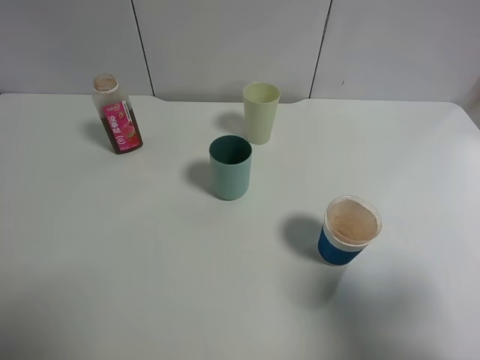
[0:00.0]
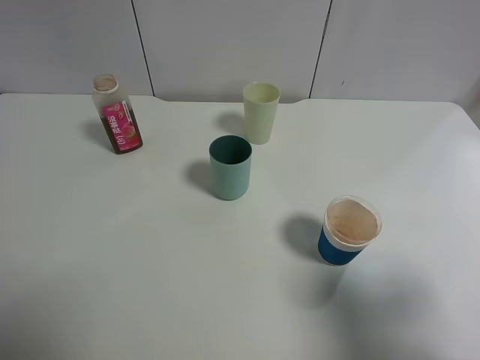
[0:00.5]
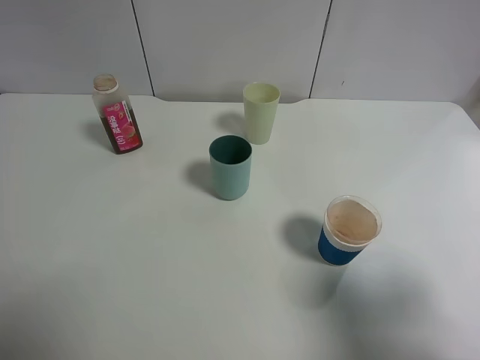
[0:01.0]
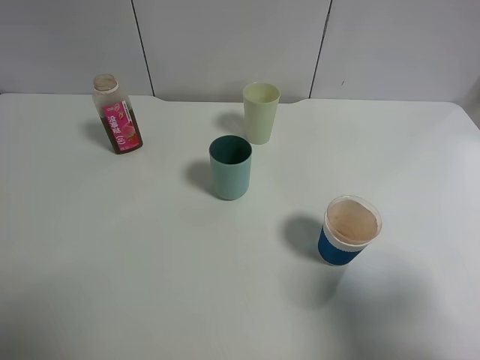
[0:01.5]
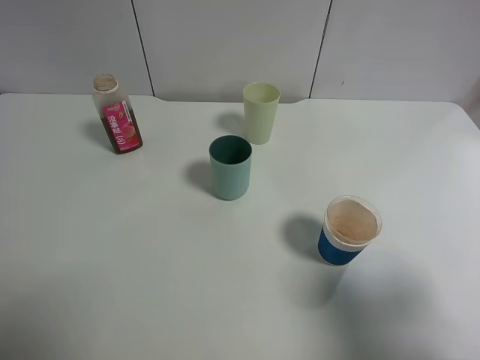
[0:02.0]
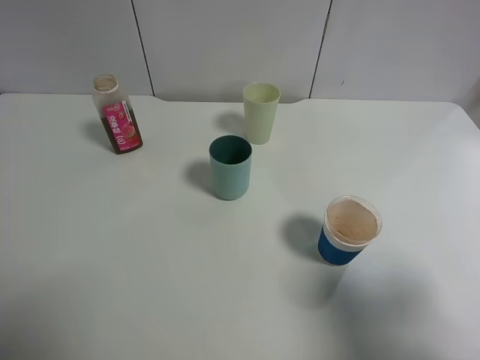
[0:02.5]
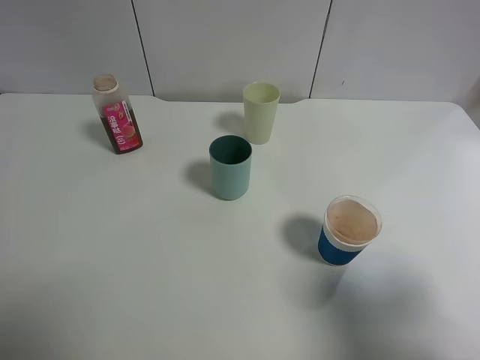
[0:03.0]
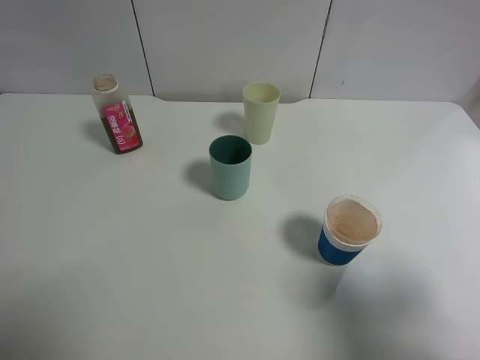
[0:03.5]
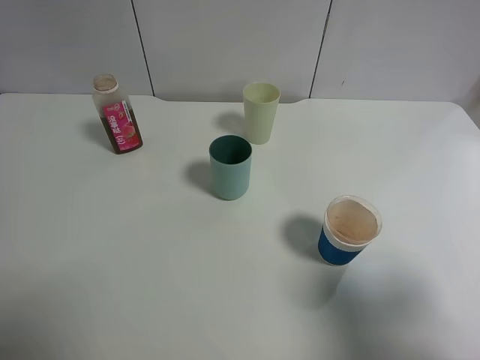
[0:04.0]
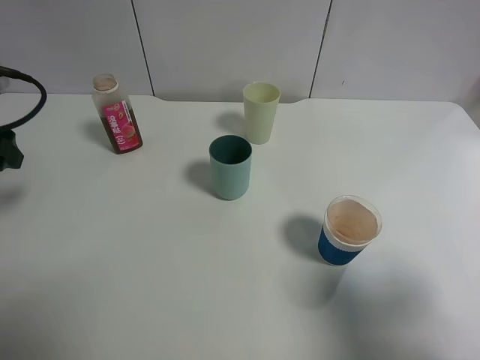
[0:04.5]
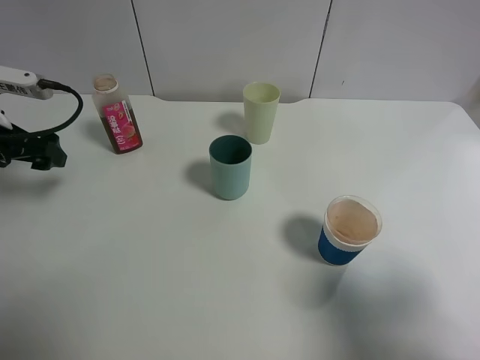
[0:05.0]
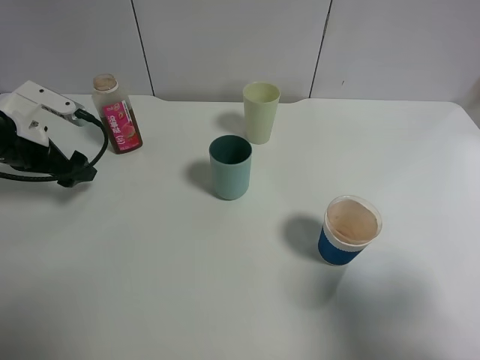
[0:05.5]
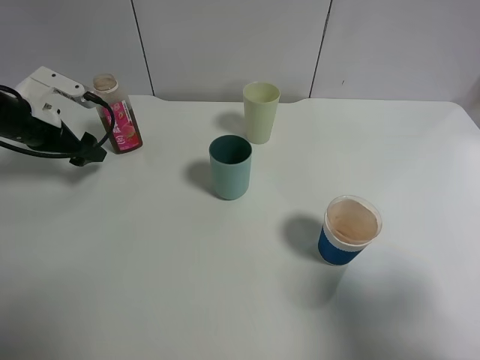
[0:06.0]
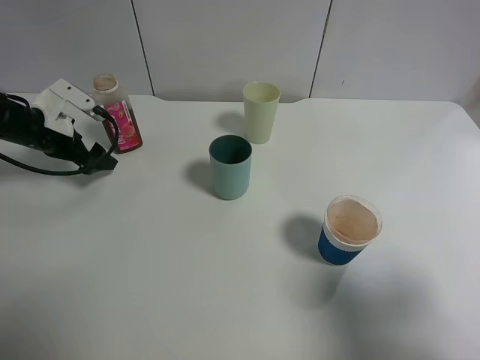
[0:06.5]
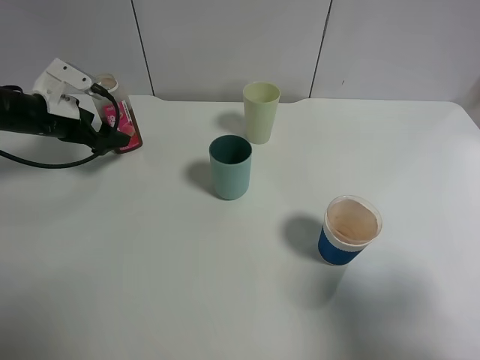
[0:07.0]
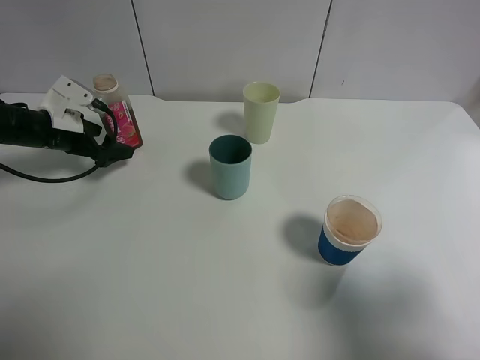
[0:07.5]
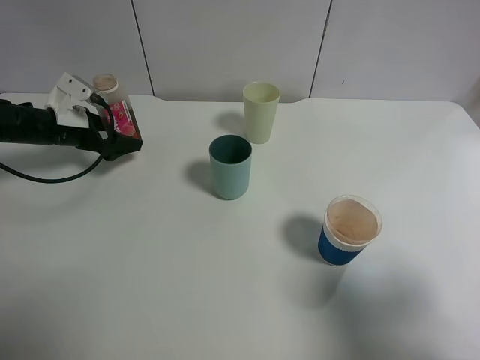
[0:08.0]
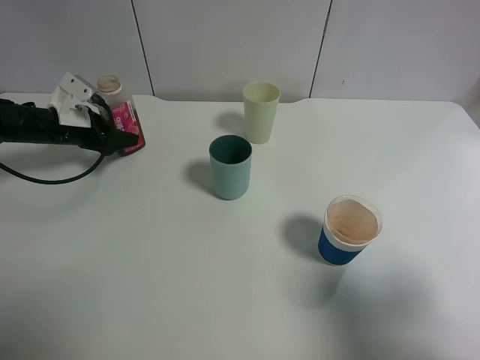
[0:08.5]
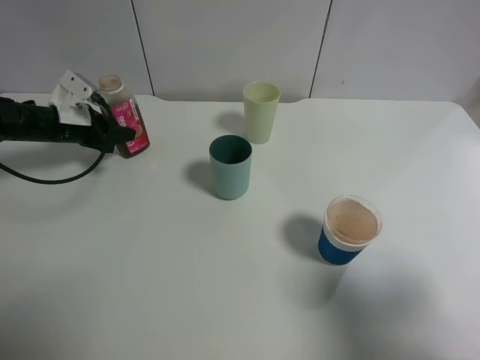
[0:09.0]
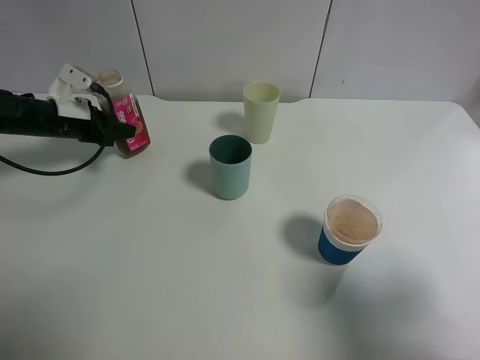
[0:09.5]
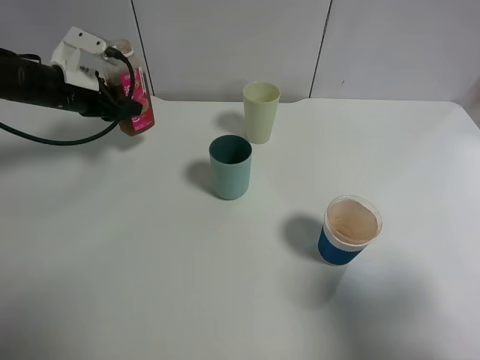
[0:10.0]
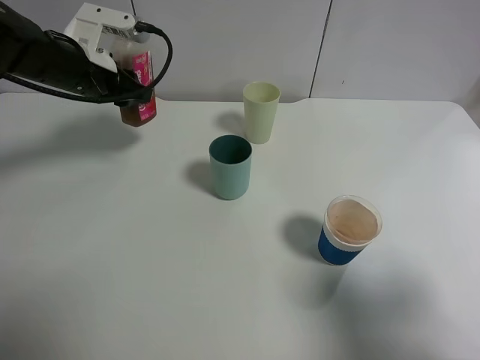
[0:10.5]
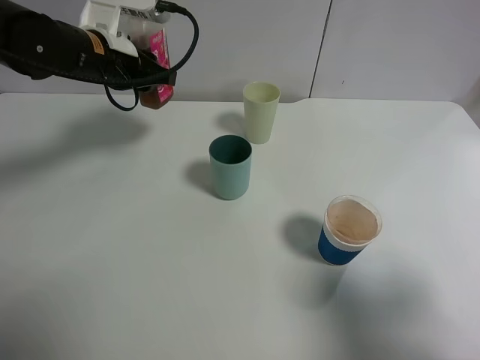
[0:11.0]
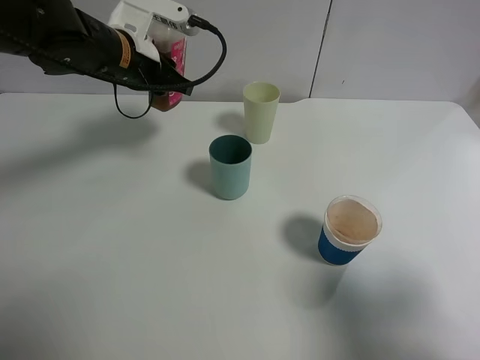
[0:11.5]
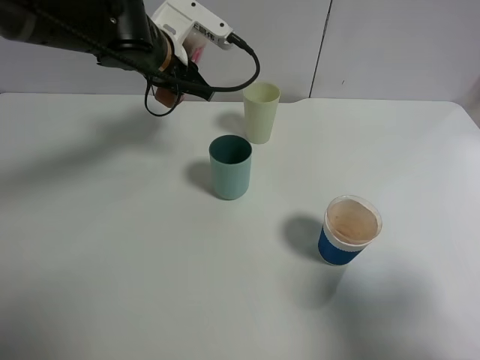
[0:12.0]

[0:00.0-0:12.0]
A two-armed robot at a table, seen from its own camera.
Task of the whole recording: use a gripper to hold the bottle of the drink and pour it into a random cup.
Step, 0.0 to 8.5 s: Grasp the cranberry juice bottle with the left gripper.
0.0 to 2.0 s: Neither gripper changes place.
4.0 to 6.0 s: The left gripper shifts some 25 cm forward and downward.
6.0 to 8.0 s: The left gripper heads downward, covering roughly 5 cm.
8.0 to 10.0 s: The left gripper travels upward by some 10 cm, and closes.
10.0 to 12.0 s: The left gripper moves to the right, some 15 cm.

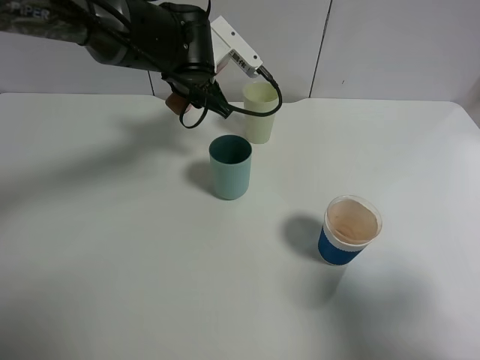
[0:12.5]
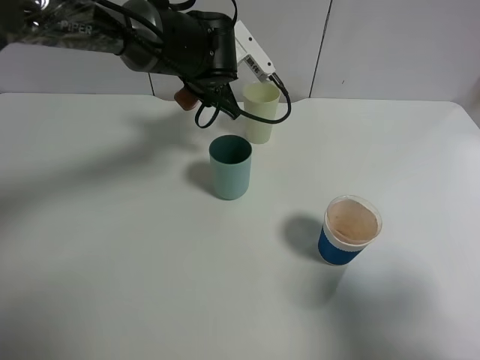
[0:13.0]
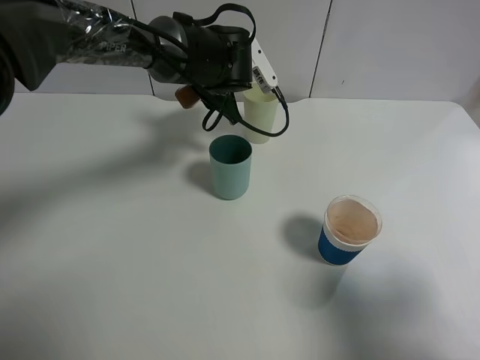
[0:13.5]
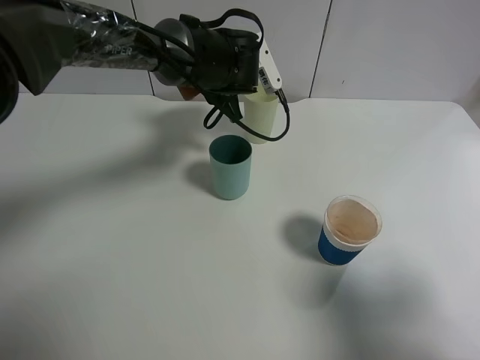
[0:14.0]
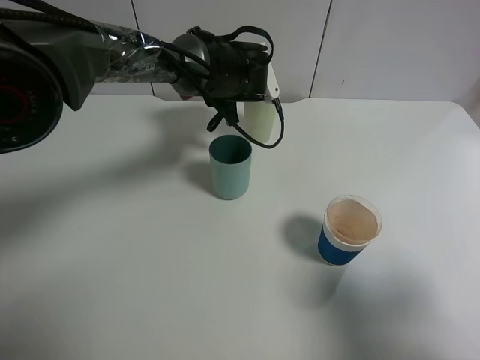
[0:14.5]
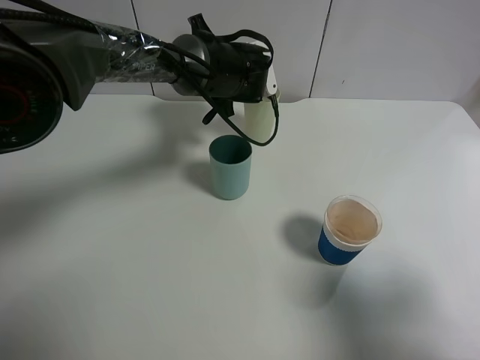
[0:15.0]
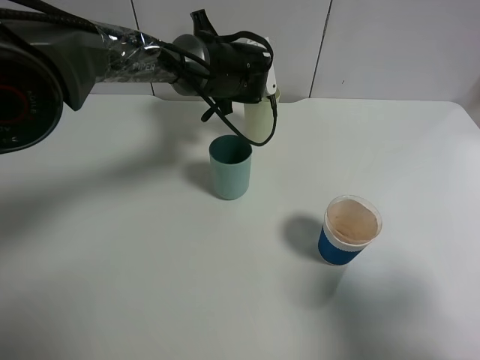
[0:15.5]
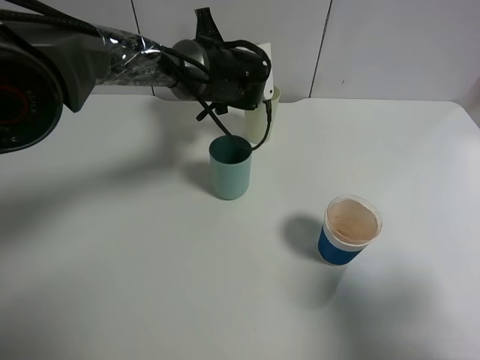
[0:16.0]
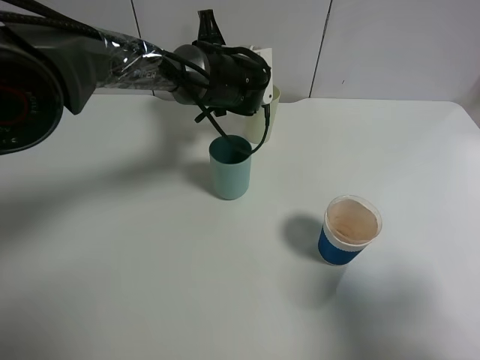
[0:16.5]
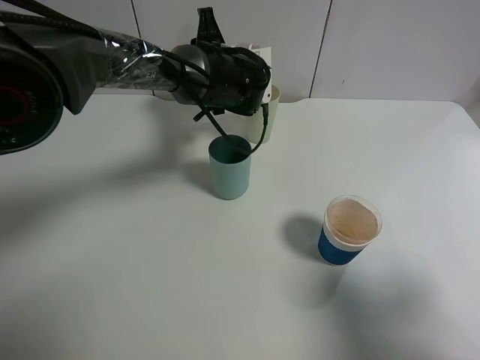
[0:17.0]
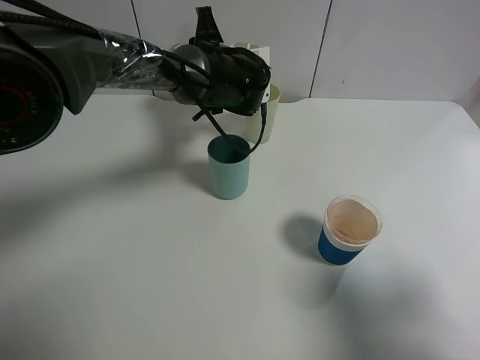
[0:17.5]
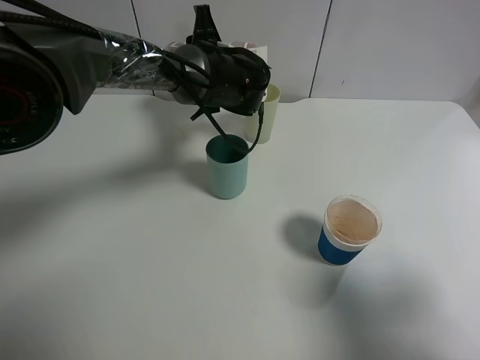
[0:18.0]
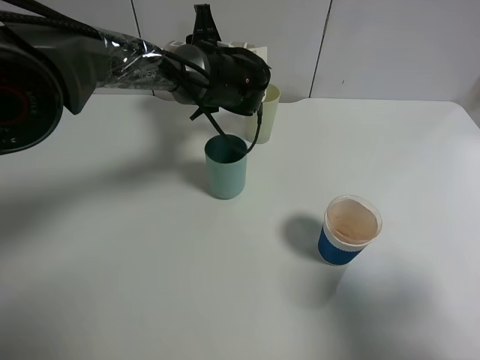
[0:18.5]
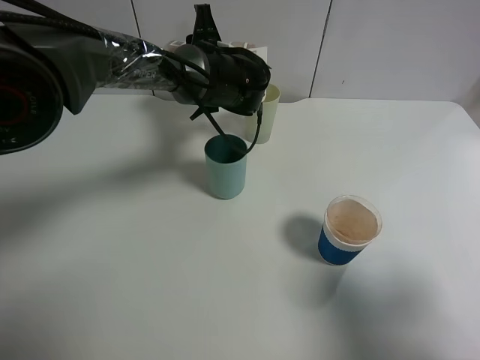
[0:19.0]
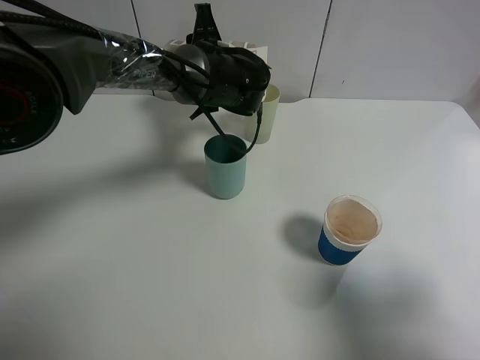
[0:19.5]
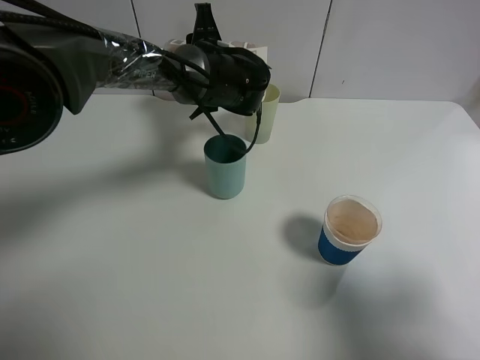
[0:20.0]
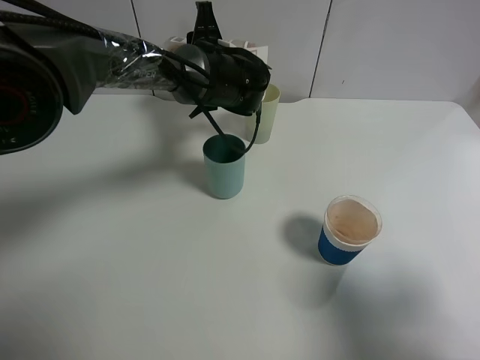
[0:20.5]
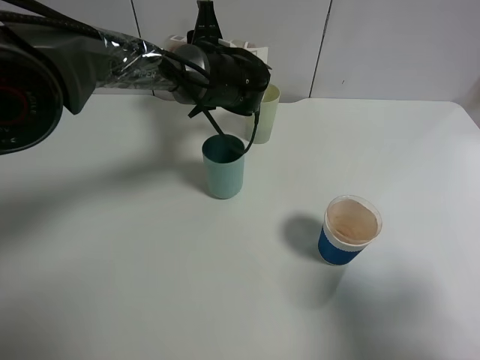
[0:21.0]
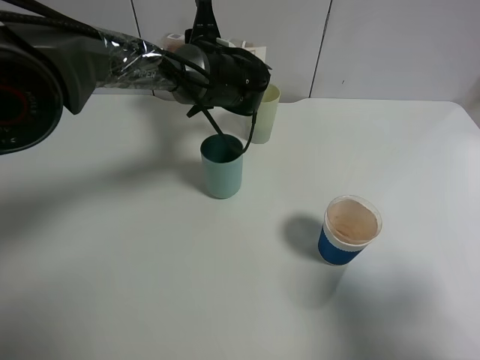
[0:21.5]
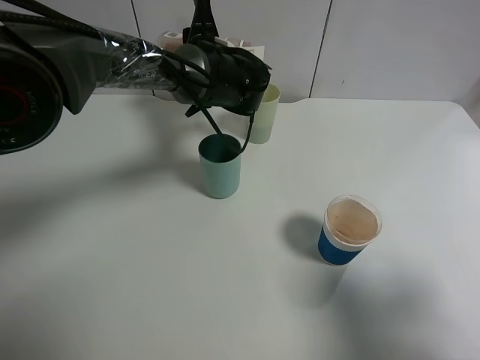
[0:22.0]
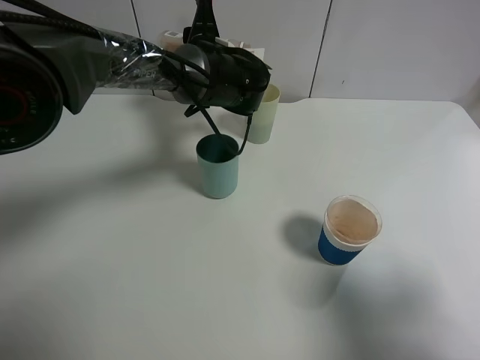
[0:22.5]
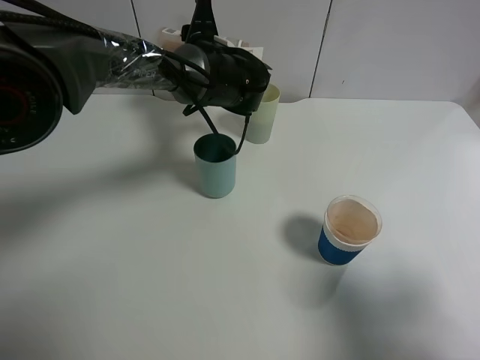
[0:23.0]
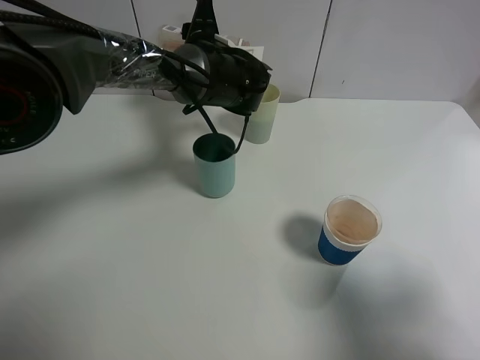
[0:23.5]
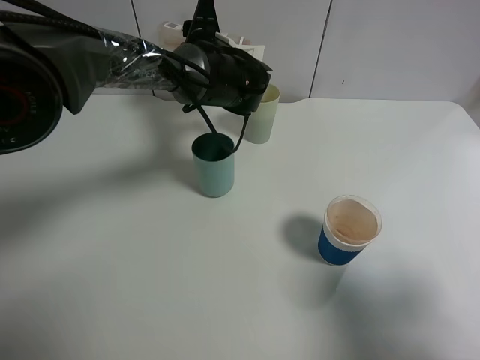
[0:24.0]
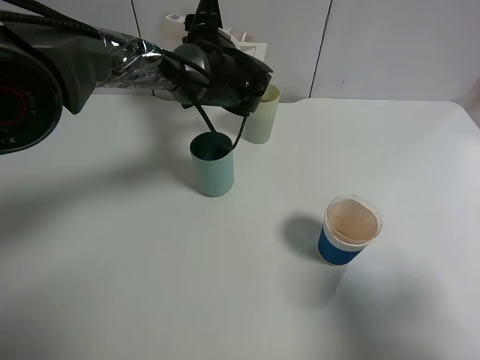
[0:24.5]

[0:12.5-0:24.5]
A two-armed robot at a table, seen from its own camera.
Task of the whole recording: use a gripper to hold the bottle of the drink and pour it into a random cup.
12.5 to 14.5 s: The left gripper shifts by about 5 cm.
14.5 to 16.5 s: The grippers make only small movements.
16.5 to 18.5 s: There are only small adjustments of the grippers.
18.5 to 20.5 s: Neither gripper changes place.
20.5 to 24.5 s: There are only small adjustments of the grippers.

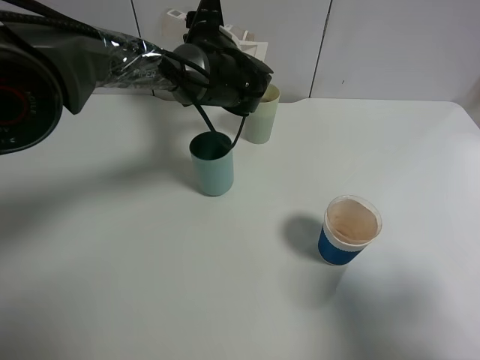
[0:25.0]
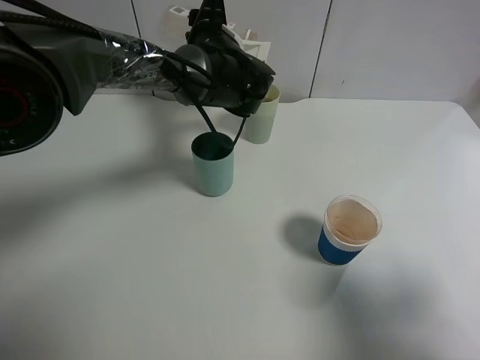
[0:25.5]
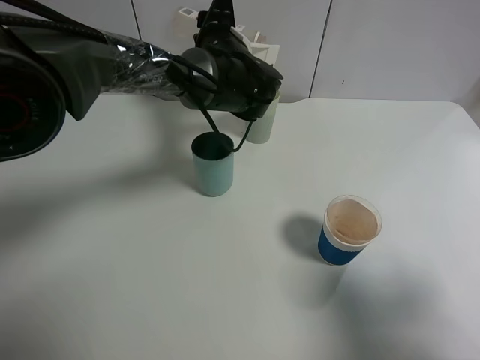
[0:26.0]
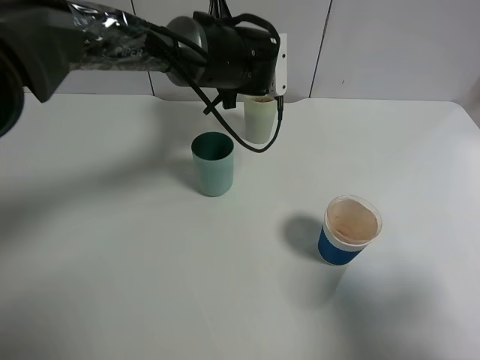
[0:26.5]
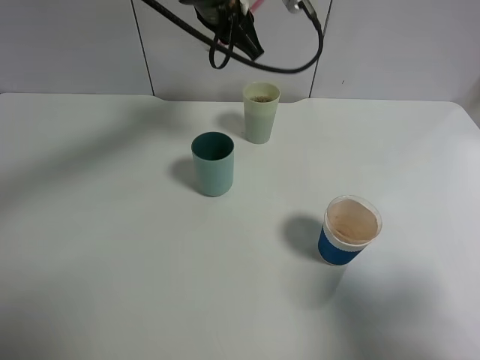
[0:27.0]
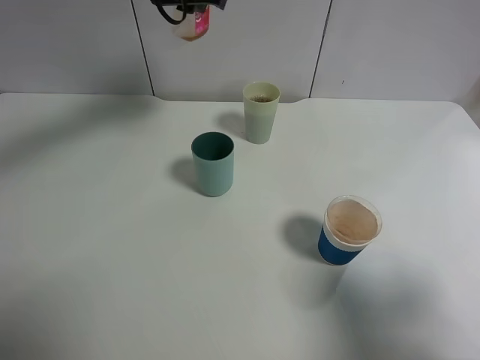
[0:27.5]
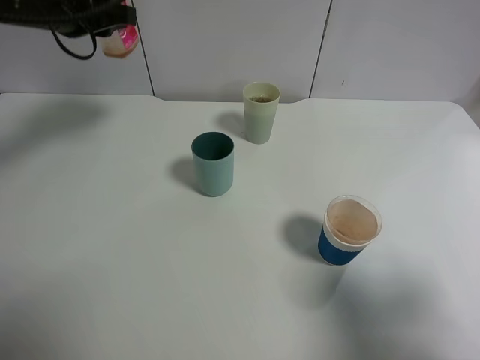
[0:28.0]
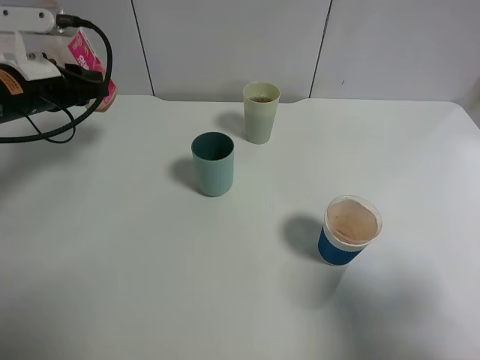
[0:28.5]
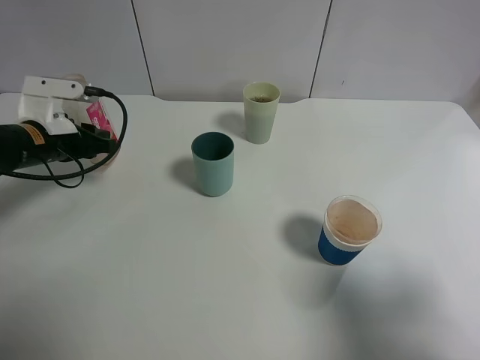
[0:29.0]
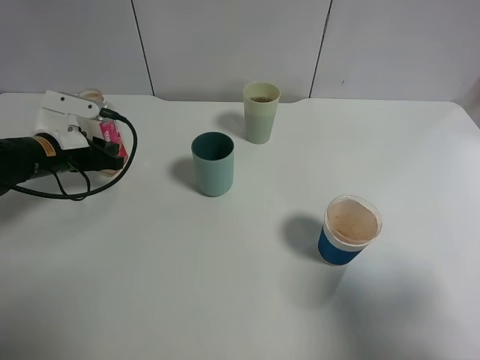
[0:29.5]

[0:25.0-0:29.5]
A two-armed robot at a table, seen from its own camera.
Task of the whole recording: use a gripper to hold the bottle of the drink and pour it into a random cup.
Step, 25.0 to 27.0 s: Pour the cranberry juice into the White Plastic Cup with the left gripper.
25.0 to 27.0 s: The left gripper moves upward, approximately 10 cm.
27.0 to 29.5 s: The left gripper shifts roughly 30 cm to the left and downward.
